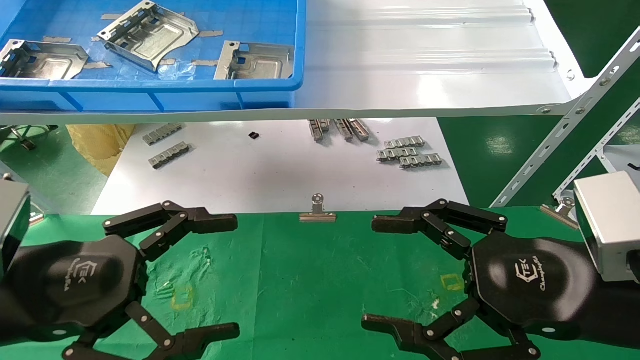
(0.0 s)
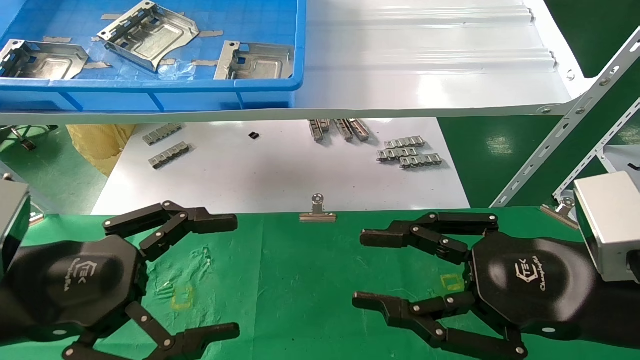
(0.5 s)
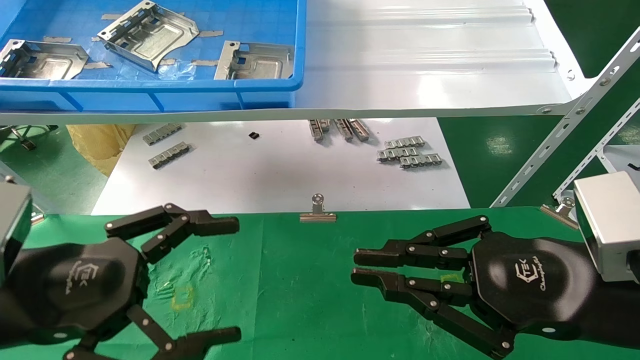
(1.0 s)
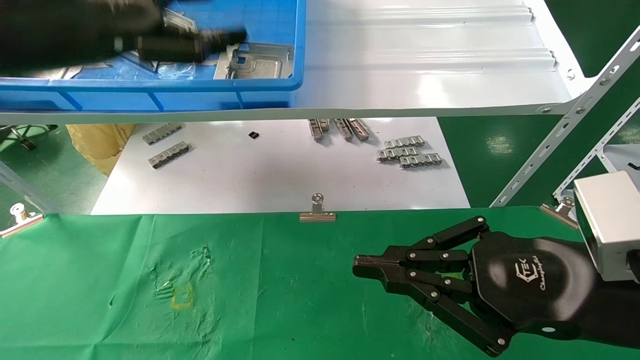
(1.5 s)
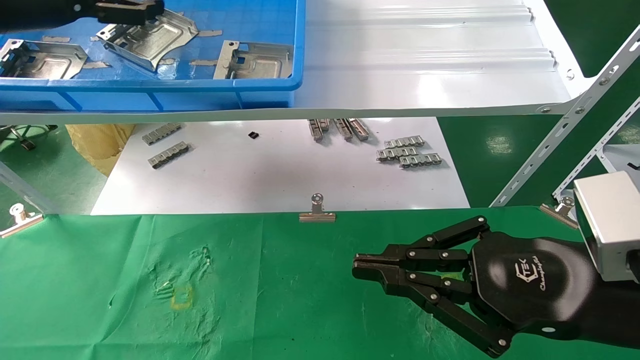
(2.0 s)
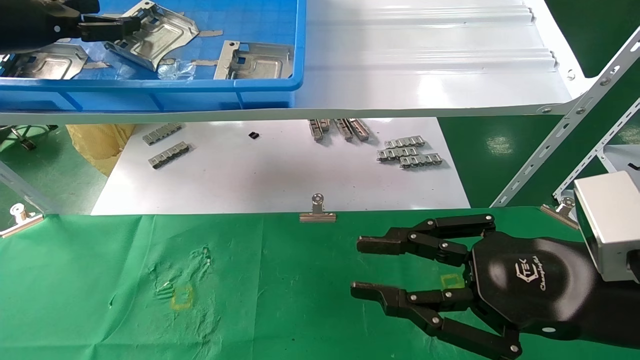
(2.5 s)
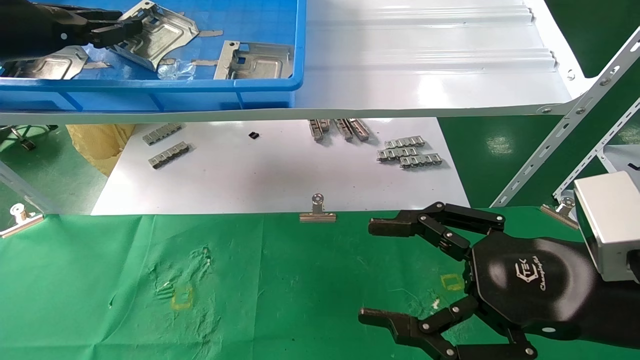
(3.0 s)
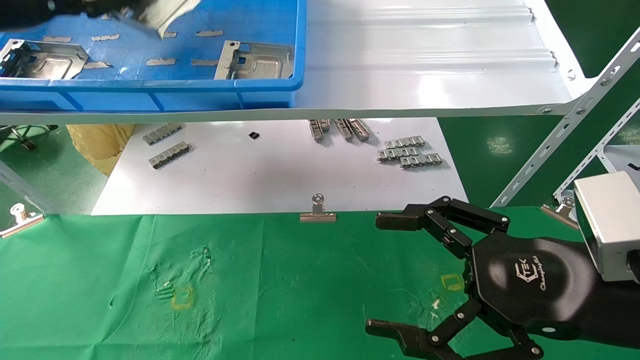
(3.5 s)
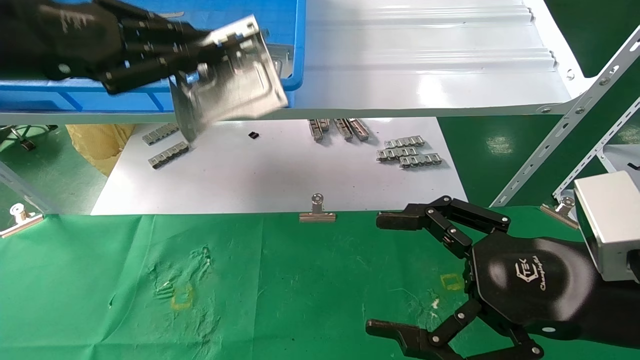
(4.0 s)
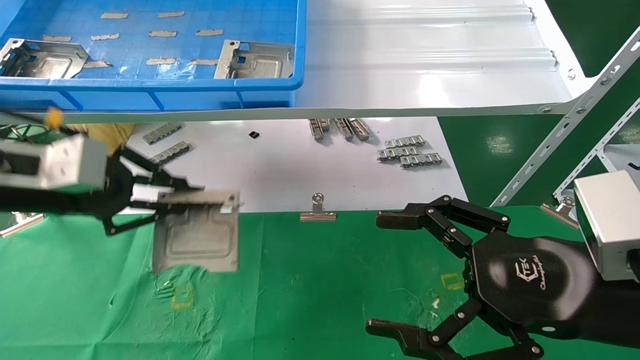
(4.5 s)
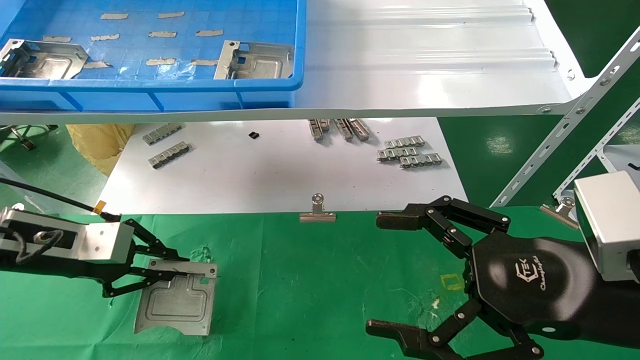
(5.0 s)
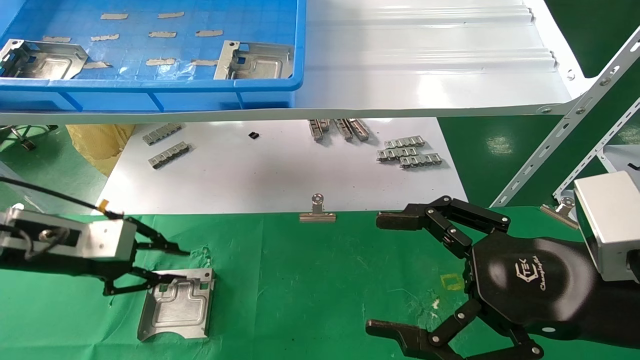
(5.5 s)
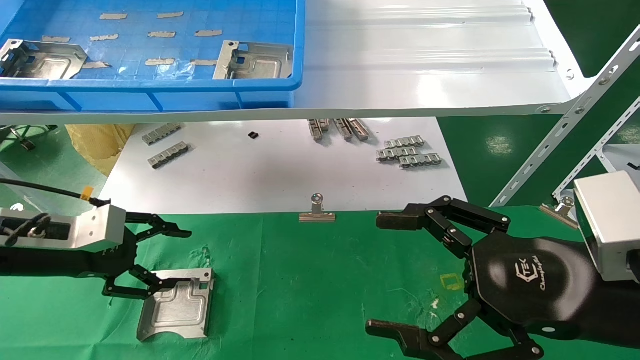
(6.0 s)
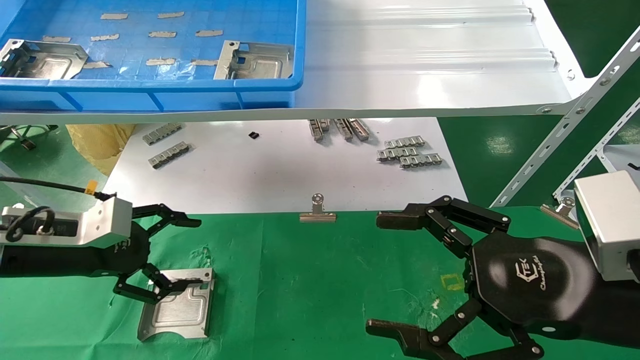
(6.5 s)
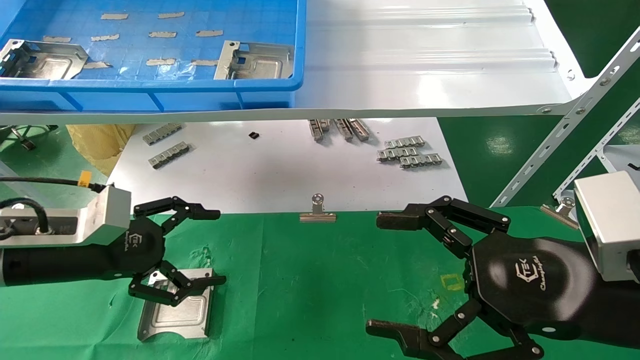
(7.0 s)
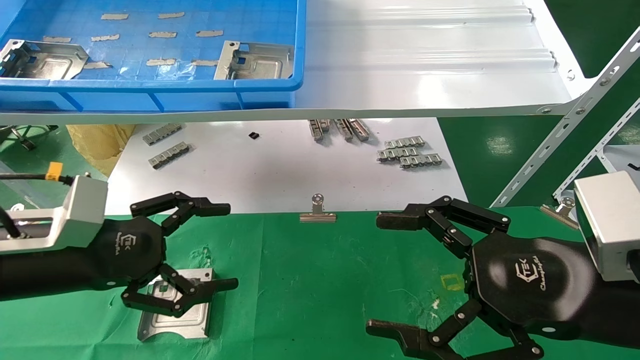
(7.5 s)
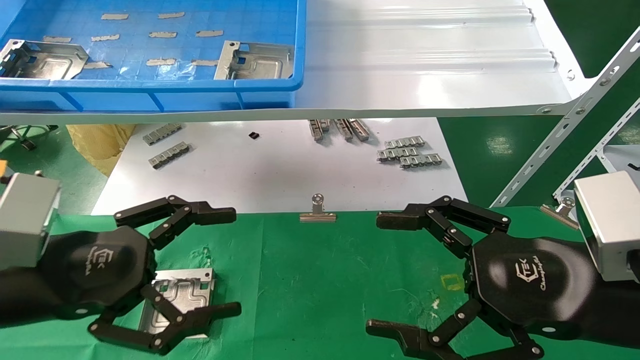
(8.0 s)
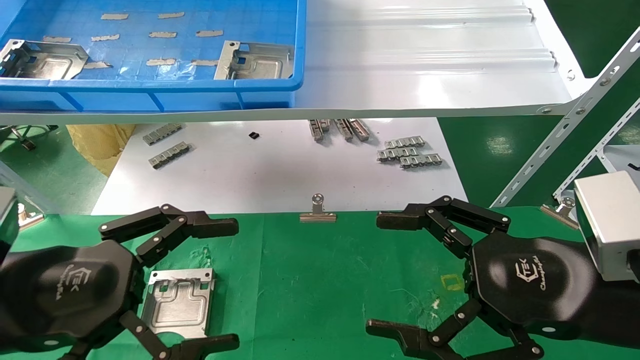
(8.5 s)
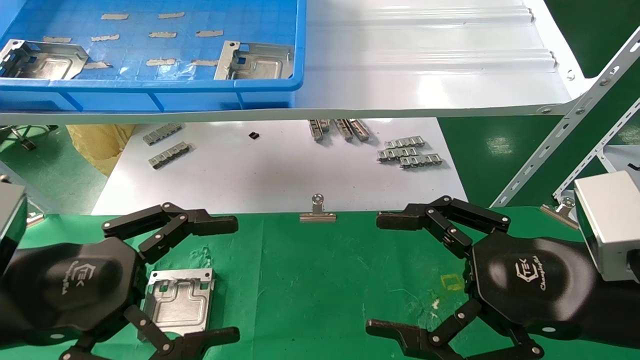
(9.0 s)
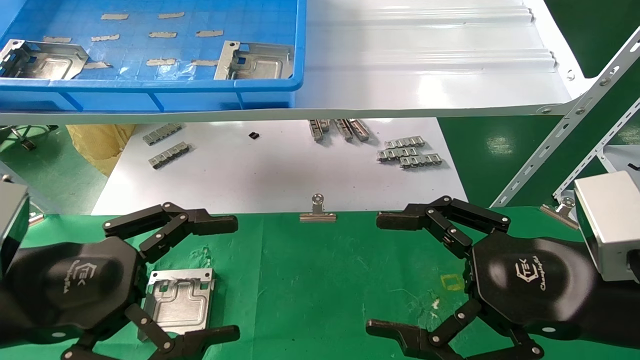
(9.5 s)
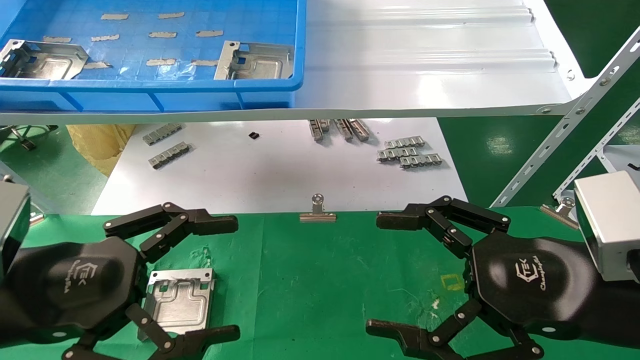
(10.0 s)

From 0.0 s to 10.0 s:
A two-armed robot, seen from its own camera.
Task of the whole recording: use the mechanical arm to pick up the parts and place them on the table.
Step, from 1.5 s to 3.0 s: Pick up the hard drive bracket from the feeding area.
Step, from 3.5 s to 5.5 s: Place the hard drive bracket into the box.
From 0.0 s to 2.0 s: The right gripper closes up. Meanwhile the left gripper moves upward and forward, some 30 cm.
From 2.0 s to 4.0 s: The left gripper goes approximately 10 cm backward, and closes; the right gripper opens up.
From 4.0 s to 6.0 s: The left gripper is displaced downward by roughly 20 cm, and opens.
From 6.0 s to 8.0 s: The left gripper travels backward and to the right by roughly 15 cm, and opens.
From 8.0 s to 10.0 s: There are only small adjustments of the grippers.
